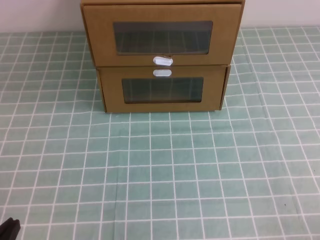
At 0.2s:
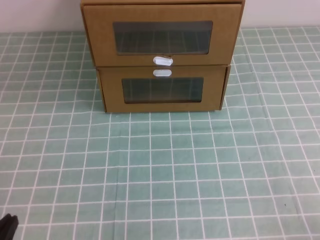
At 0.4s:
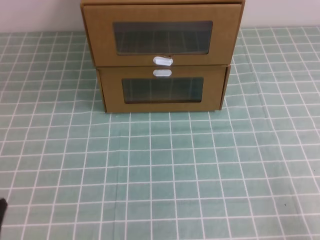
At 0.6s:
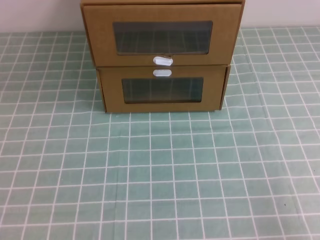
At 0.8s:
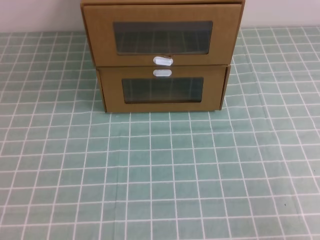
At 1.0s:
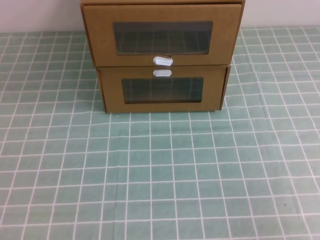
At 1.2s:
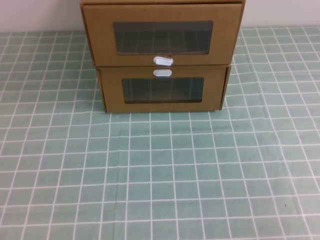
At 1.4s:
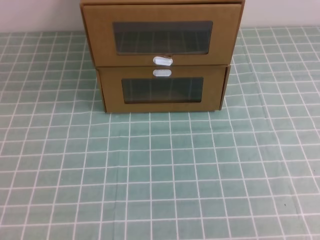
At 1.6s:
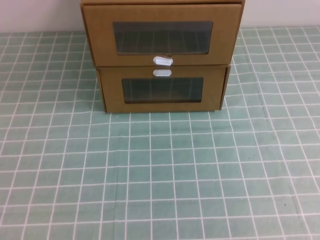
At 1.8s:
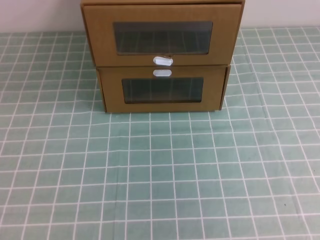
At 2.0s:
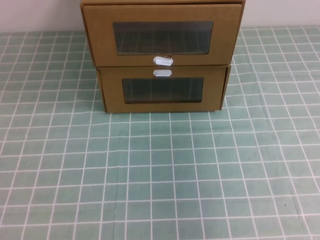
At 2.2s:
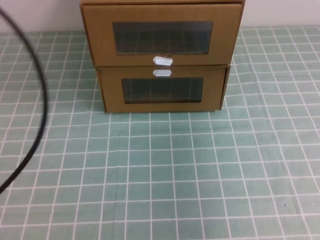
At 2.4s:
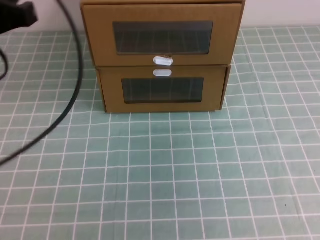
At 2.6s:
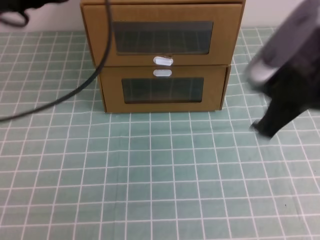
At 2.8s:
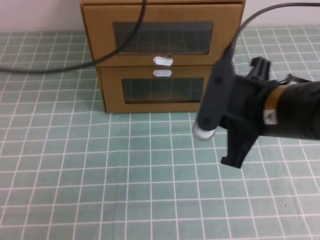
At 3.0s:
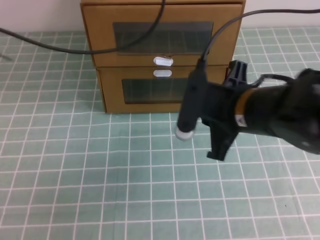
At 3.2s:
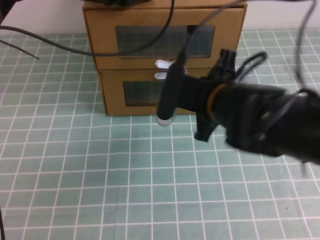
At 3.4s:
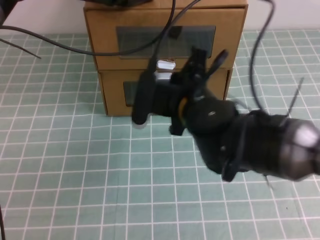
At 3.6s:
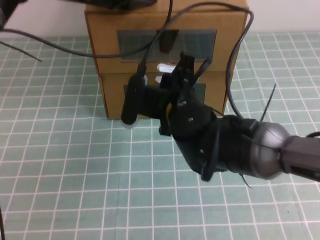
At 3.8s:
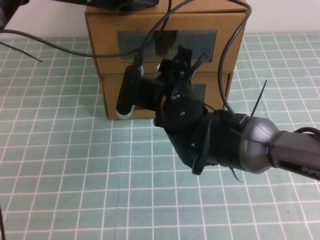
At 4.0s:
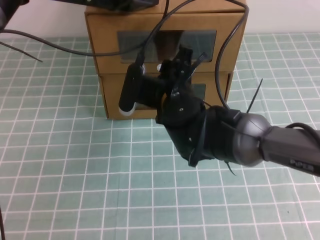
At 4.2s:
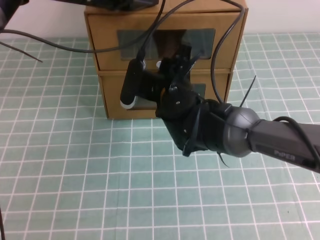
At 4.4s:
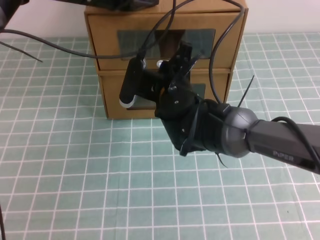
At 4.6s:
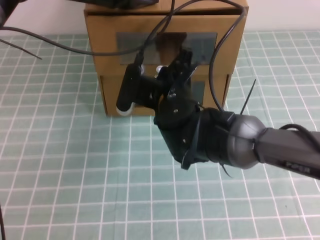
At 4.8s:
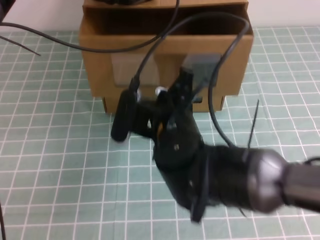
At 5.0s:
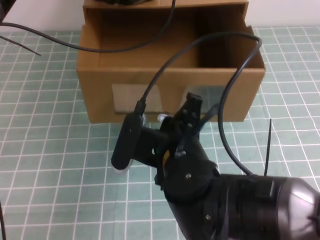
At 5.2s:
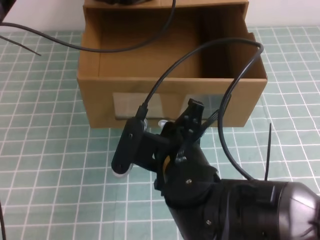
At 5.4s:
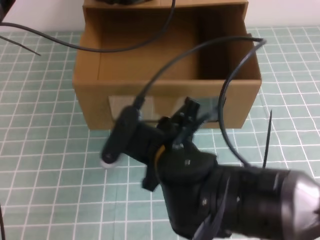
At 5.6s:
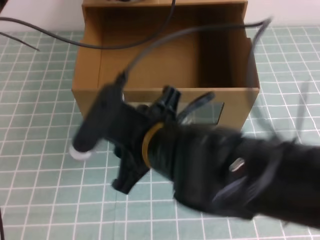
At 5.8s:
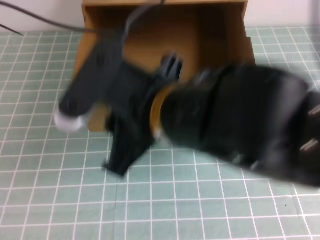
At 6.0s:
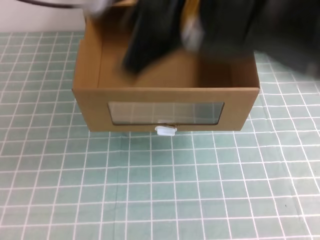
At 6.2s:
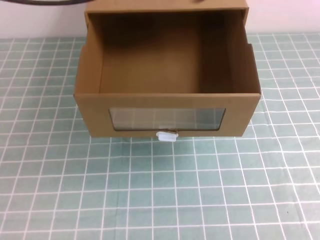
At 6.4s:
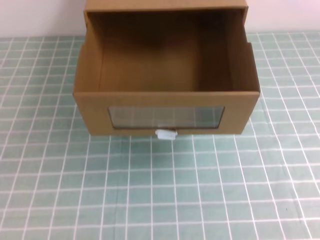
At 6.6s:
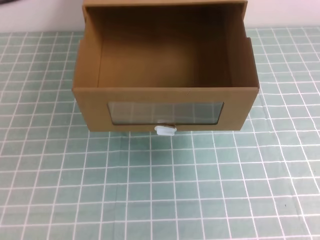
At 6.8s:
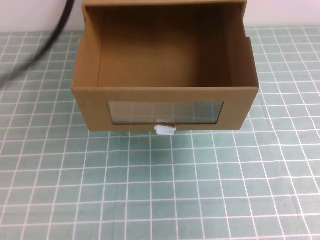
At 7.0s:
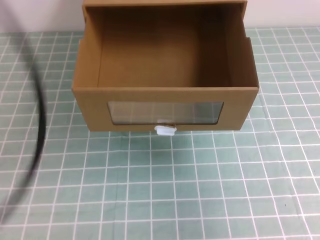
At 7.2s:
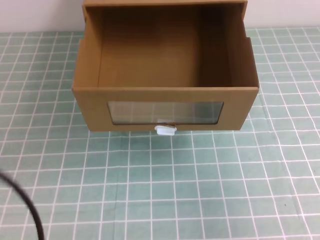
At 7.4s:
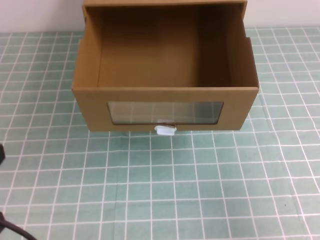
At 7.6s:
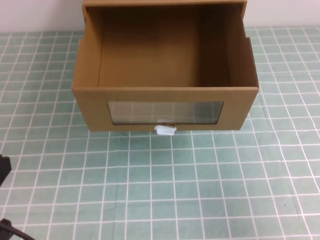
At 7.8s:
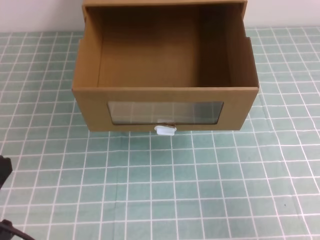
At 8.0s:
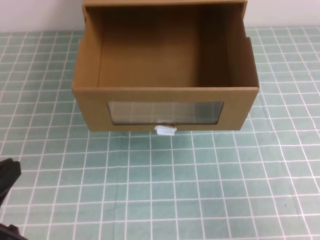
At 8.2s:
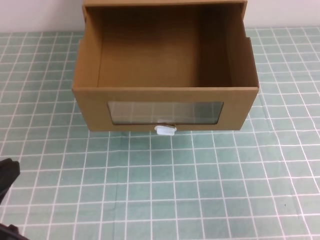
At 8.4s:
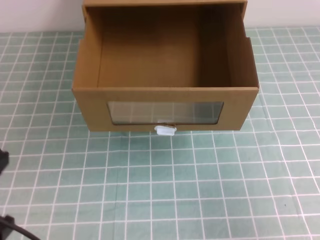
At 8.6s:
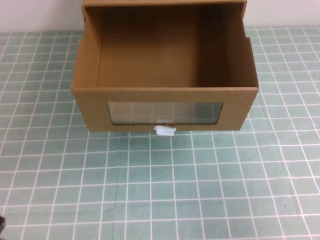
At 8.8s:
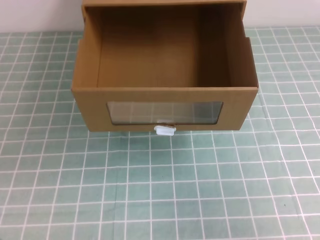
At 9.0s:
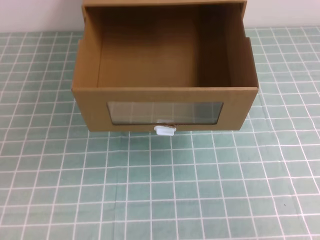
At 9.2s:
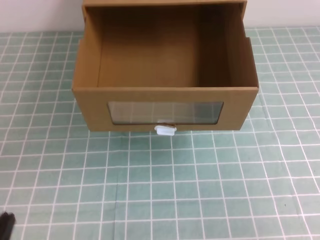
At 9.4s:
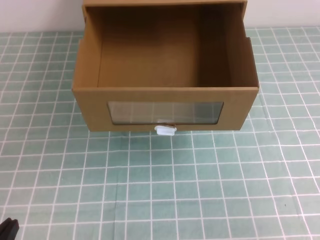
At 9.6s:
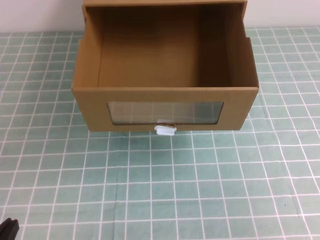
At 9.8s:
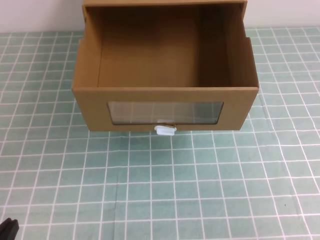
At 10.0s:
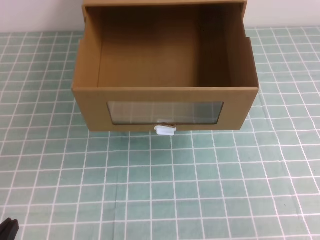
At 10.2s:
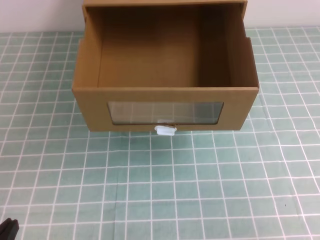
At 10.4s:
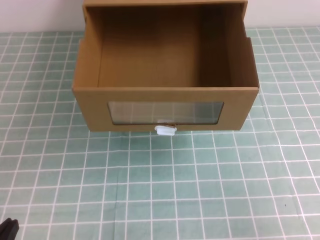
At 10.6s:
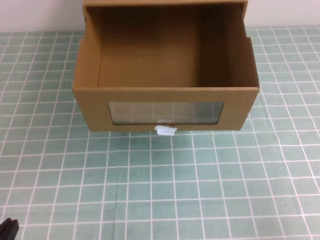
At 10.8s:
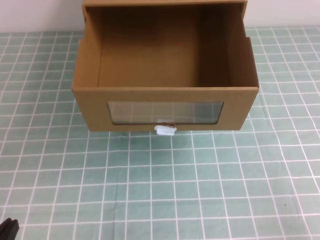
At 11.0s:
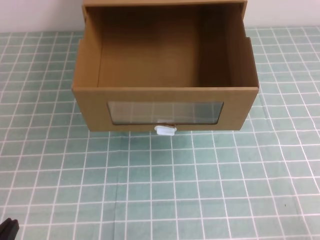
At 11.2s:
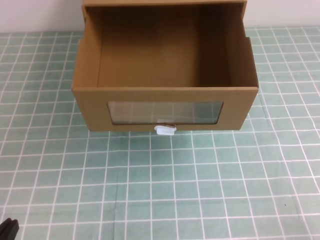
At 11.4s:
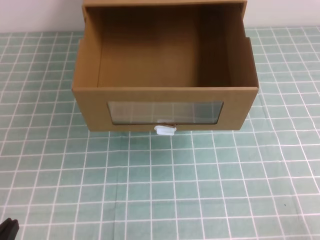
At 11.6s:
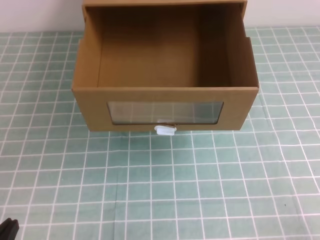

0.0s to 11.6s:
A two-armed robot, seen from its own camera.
Task of the whole recording: open the shoebox on the cyan tablecloth.
Step, 0.0s to 11.6s: Open the shoe box.
1.4s to 2.8s: The right gripper travels forward and to the left by approximately 30 cm. The left gripper goes some 35 cm forward.
2.8s to 4.4s: The left gripper shifts approximately 15 cm forward, downward and to the right. Meanwhile the right gripper moves to the left, forward and downward, roughly 20 cm, and opens, then closes once more.
4.4s to 5.8s: The left gripper moves upward, roughly 5 cm, while the right gripper is displaced backward and upward by some 20 cm, and opens its fingers.
5.8s to 7.2s: The right gripper moves to the right, roughly 30 cm, and closes; the left gripper heads backward, covering about 30 cm.
7.2s to 8.8s: The left gripper heads downward, covering some 15 cm.

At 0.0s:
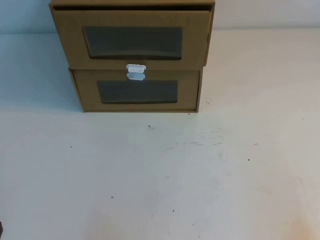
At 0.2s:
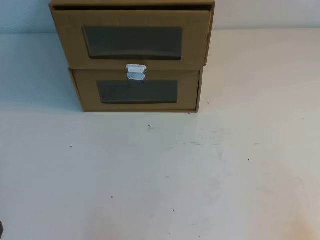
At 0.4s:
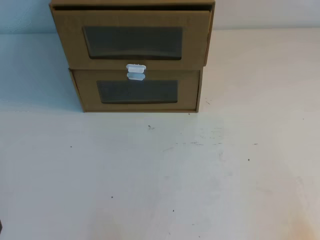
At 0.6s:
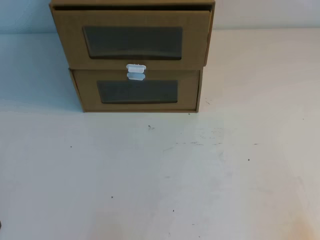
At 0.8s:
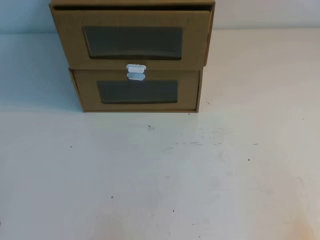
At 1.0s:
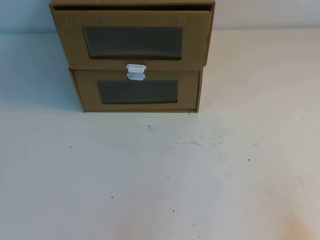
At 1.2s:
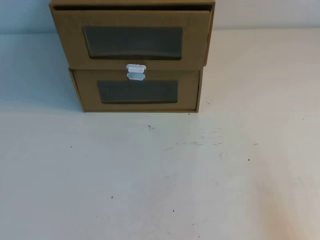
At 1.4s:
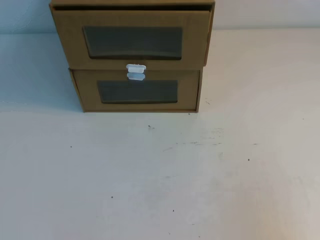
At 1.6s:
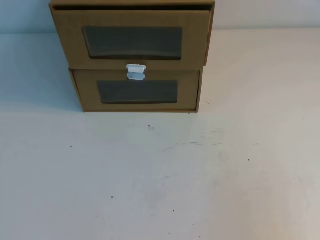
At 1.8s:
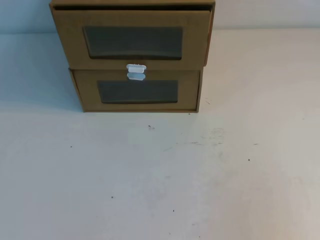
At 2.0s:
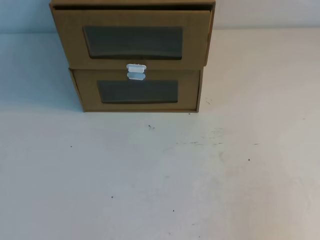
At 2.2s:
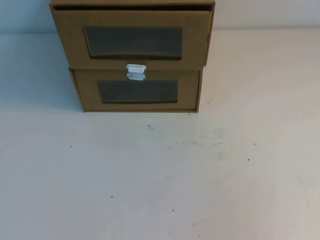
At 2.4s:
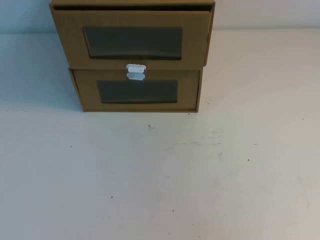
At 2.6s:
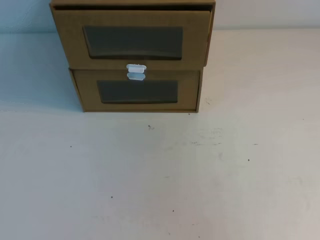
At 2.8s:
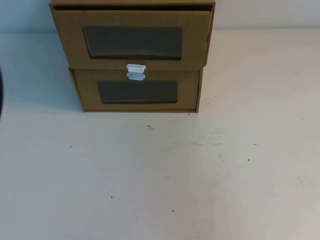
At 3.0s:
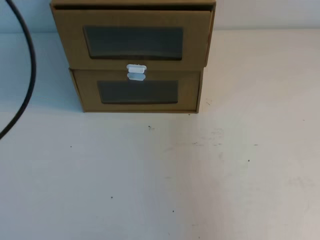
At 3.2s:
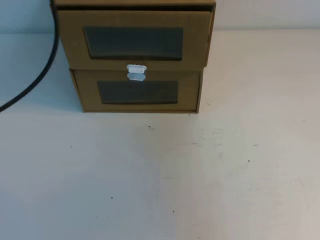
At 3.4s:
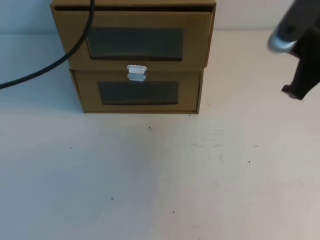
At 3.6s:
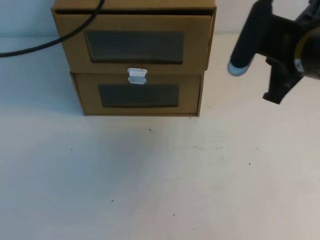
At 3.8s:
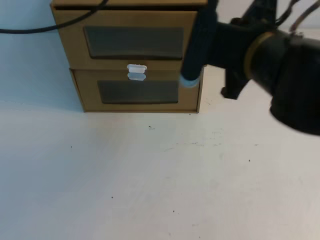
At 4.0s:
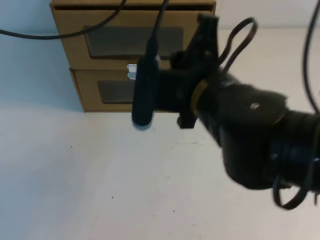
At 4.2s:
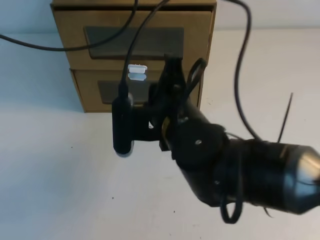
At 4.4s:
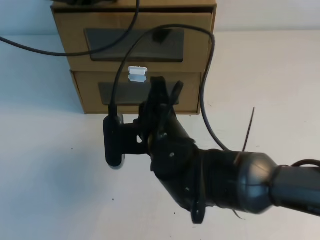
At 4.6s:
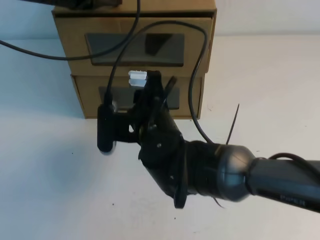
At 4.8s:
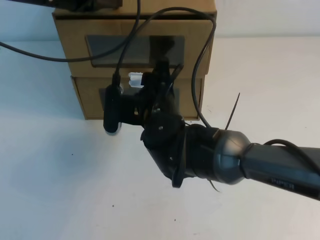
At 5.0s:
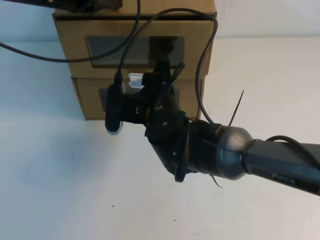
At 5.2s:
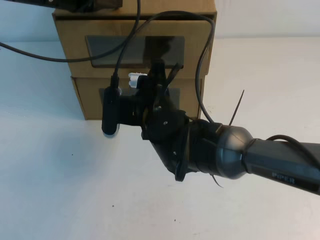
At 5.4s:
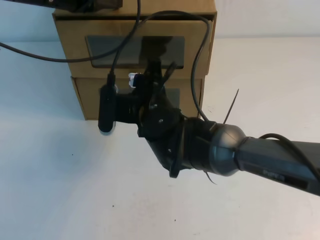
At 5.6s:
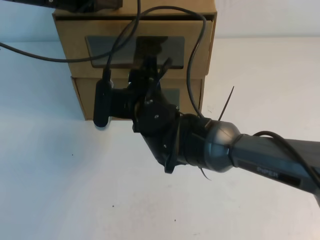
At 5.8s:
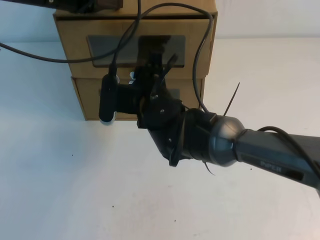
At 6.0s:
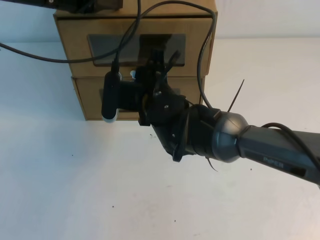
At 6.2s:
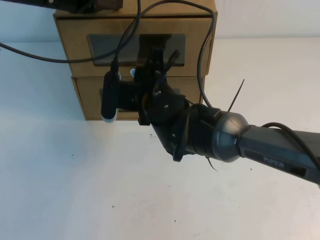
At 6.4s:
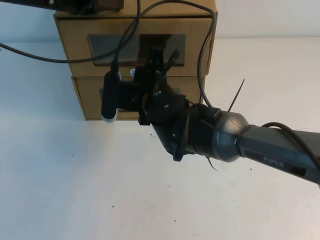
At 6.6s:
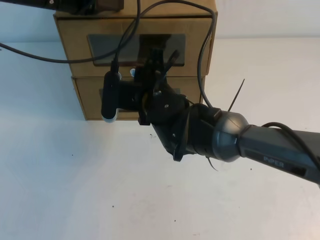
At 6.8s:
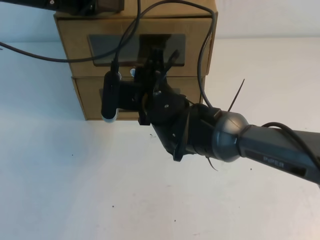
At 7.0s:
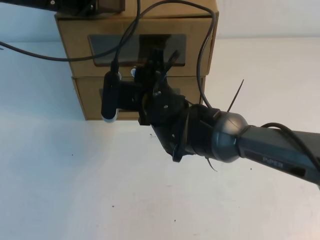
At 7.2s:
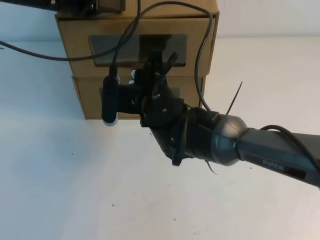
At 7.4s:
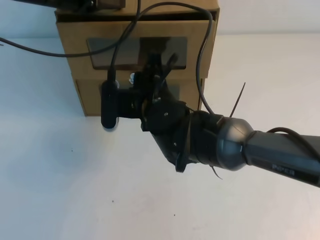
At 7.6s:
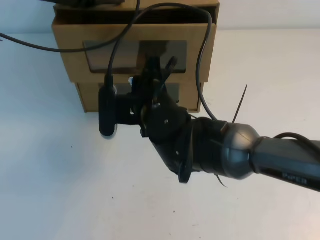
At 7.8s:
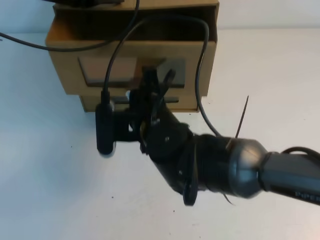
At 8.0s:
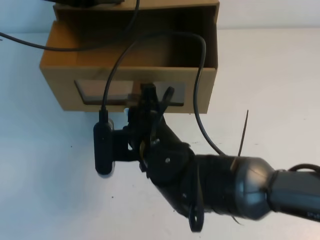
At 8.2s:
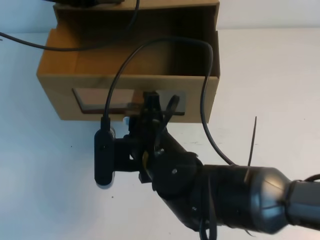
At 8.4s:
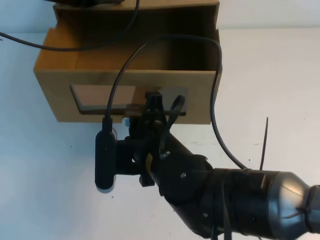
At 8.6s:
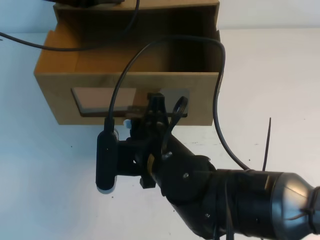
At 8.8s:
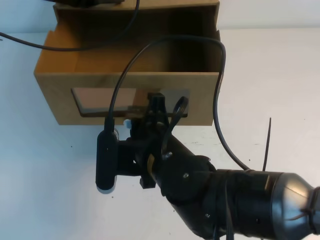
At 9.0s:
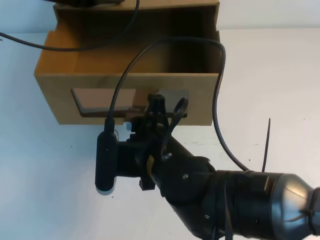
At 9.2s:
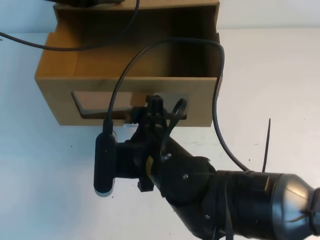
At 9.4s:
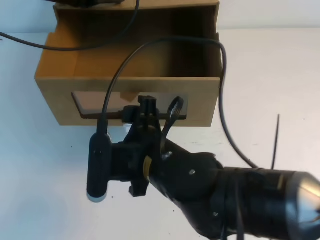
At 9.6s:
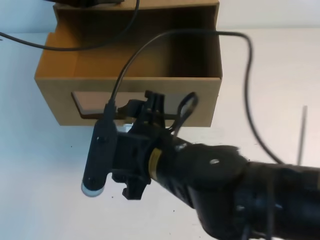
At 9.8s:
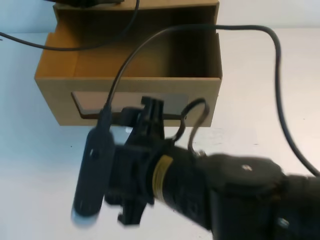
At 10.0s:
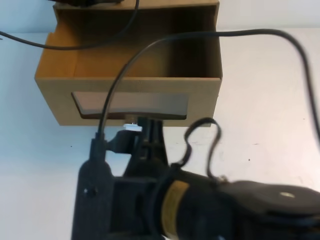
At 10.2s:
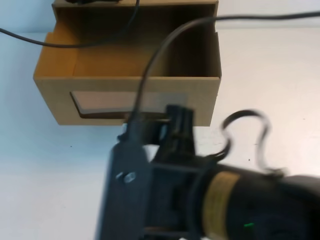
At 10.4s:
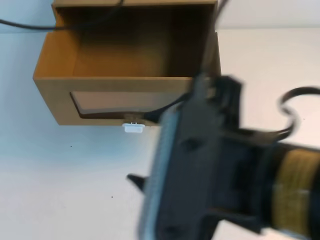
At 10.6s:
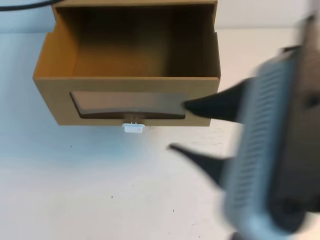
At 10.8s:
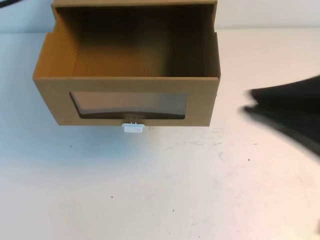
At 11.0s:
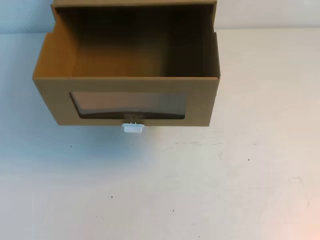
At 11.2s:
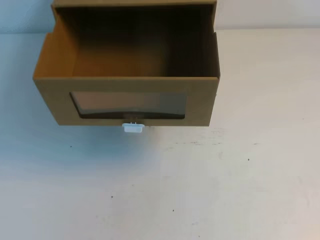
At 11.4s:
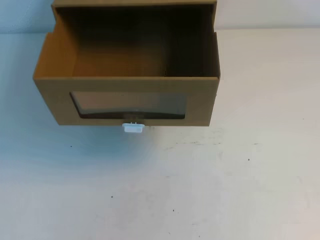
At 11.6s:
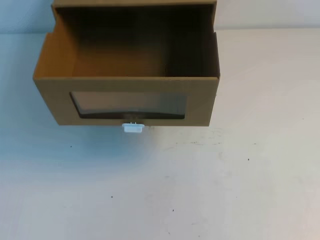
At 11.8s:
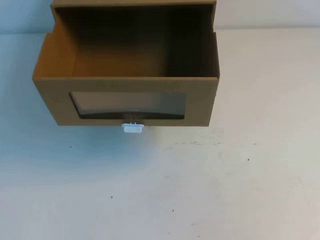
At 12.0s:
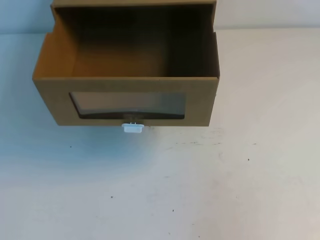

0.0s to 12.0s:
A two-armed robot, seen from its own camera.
Task of the whole recording: open the shoebox on the table.
1.6s to 3.0s: The two grippers go roughly 25 cm upward and forward.
3.0s to 4.4s: The right gripper heads to the left and downward, covering about 35 cm. Meanwhile the left gripper moves forward and to the right, about 25 cm.
4.4s to 6.0s: The right gripper is displaced forward by some 10 cm.
6.0s to 7.6s: The grippers make only small movements.
7.6s to 9.0s: The right gripper moves backward, roughly 10 cm.
9.0s to 10.4s: The left gripper goes approximately 10 cm upward and backward; the right gripper shifts roughly 20 cm upward, backward and to the right, and opens.
10.4s to 12.0s: The left gripper travels backward and downward by roughly 40 cm, while the right gripper travels to the right by some 30 cm, and closes up.
